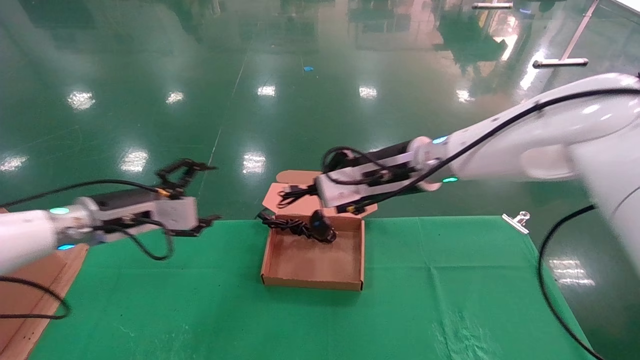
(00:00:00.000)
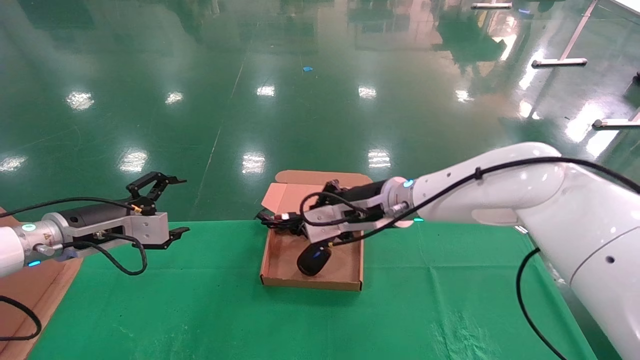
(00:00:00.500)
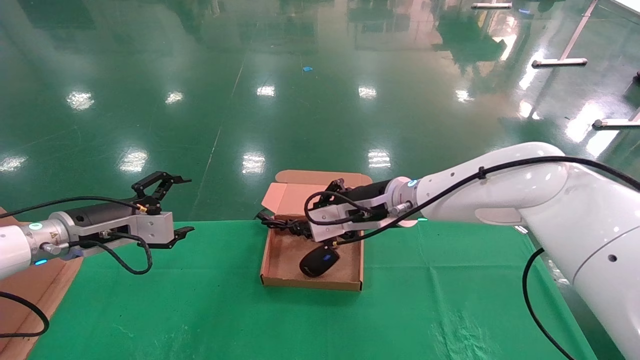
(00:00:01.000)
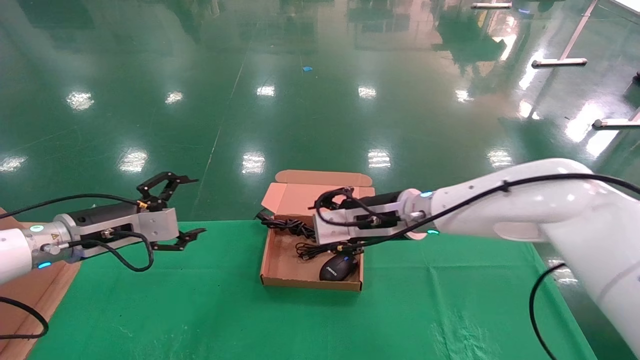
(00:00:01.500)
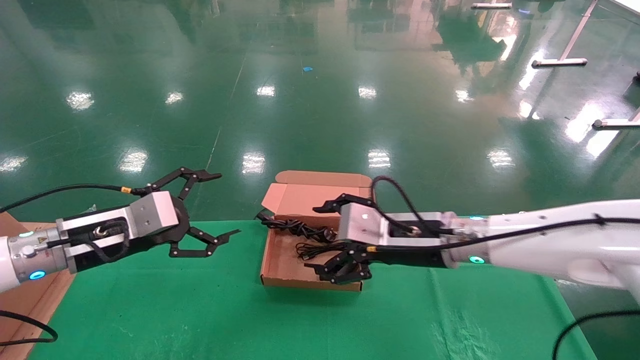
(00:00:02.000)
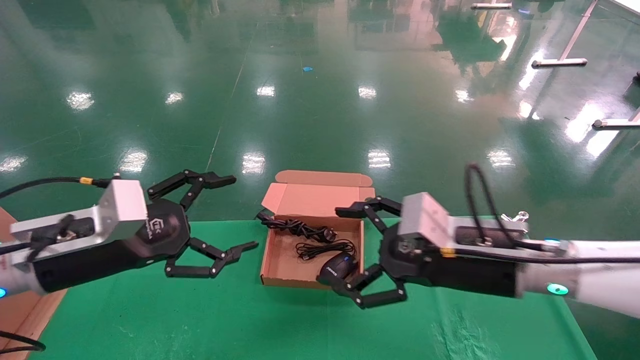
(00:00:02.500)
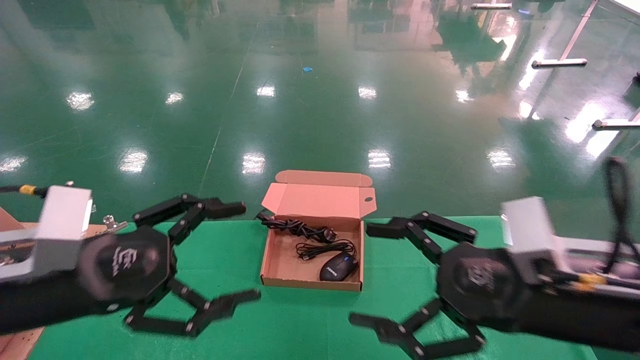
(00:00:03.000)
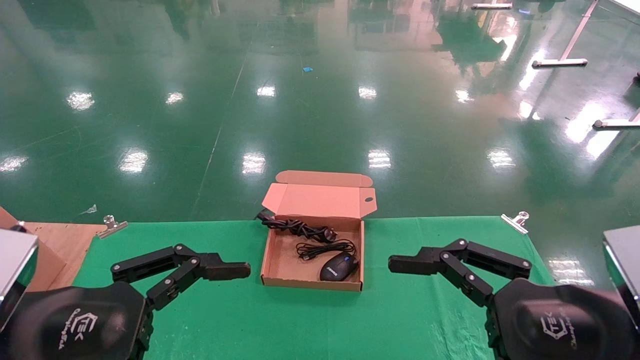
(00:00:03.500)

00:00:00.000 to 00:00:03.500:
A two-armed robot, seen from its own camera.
00:00:00.000 to 00:00:02.000: The right gripper is displaced downward by some 10 cm, and opens up. The left gripper goes approximately 5 cm backward.
00:00:02.000 to 00:00:03.500: The right gripper is displaced backward and to the right by approximately 25 cm; the left gripper is displaced backward by roughly 20 cm.

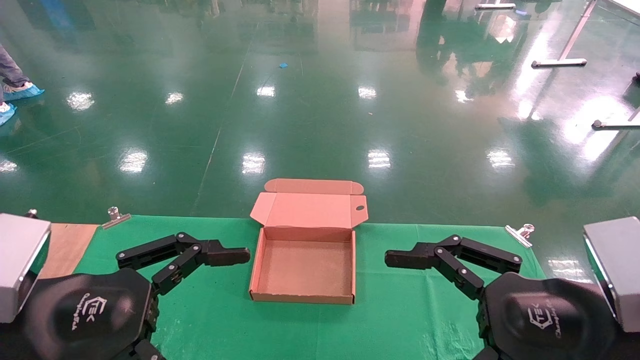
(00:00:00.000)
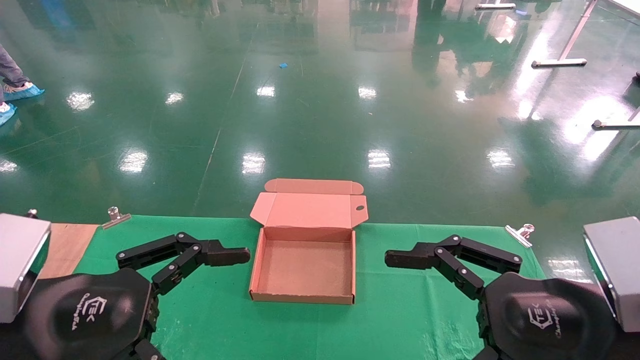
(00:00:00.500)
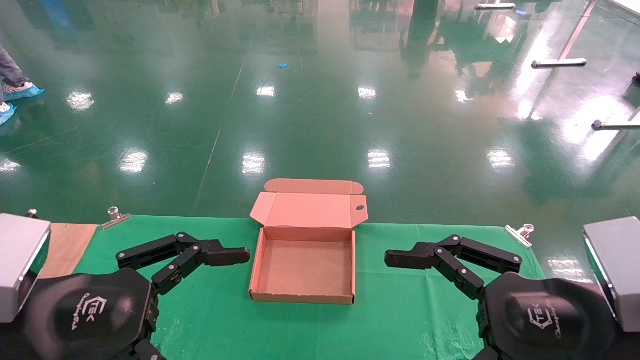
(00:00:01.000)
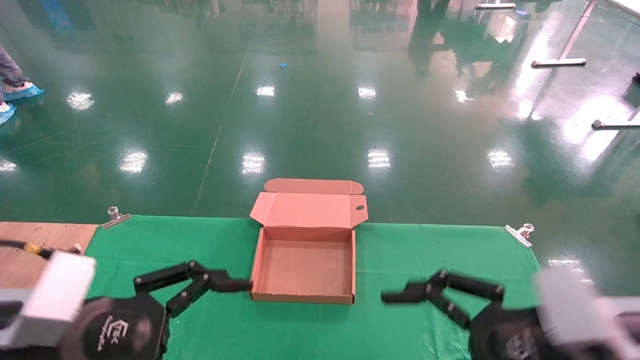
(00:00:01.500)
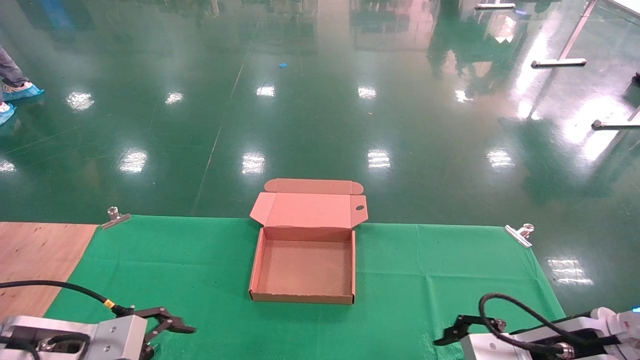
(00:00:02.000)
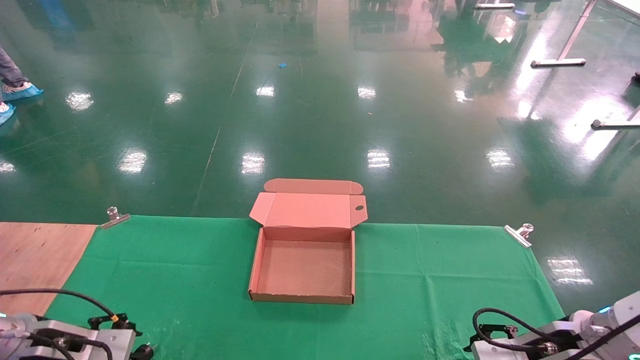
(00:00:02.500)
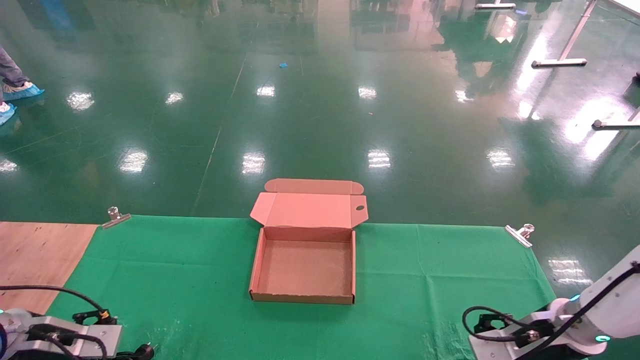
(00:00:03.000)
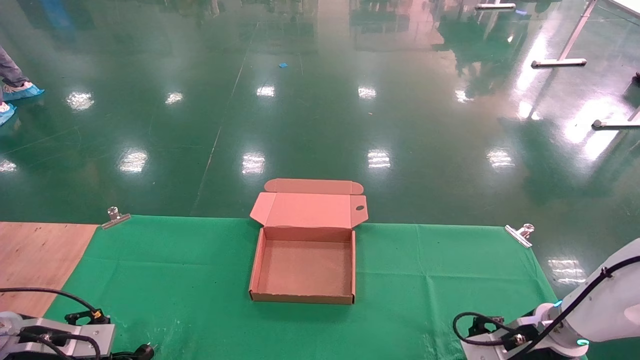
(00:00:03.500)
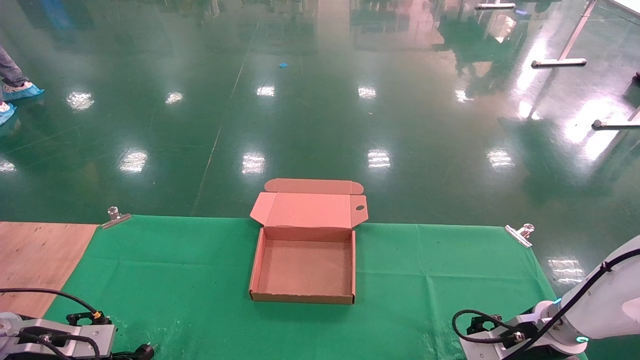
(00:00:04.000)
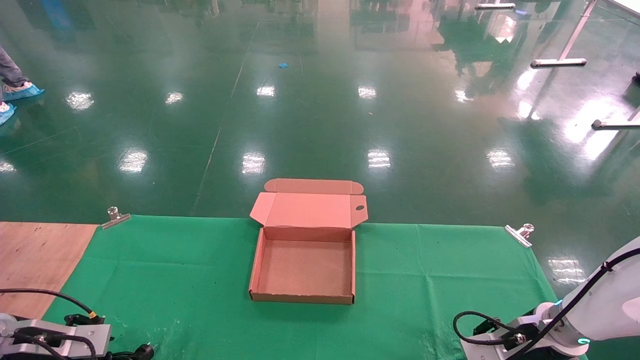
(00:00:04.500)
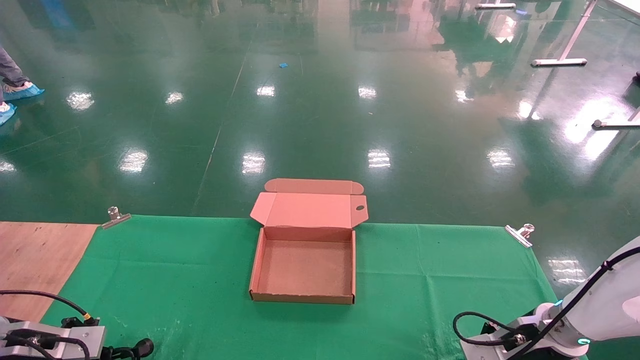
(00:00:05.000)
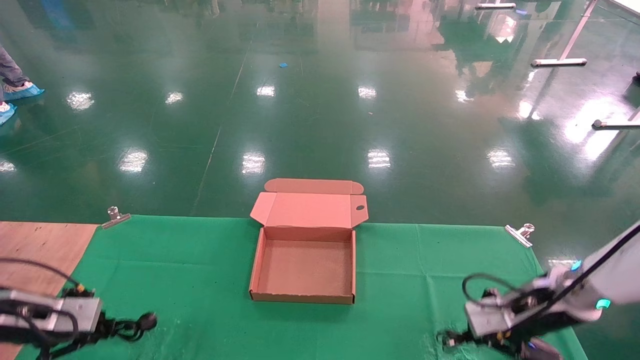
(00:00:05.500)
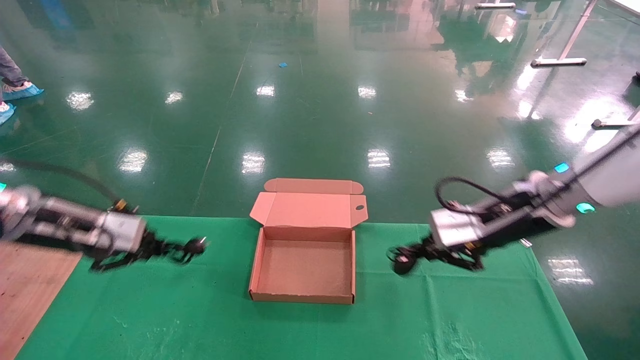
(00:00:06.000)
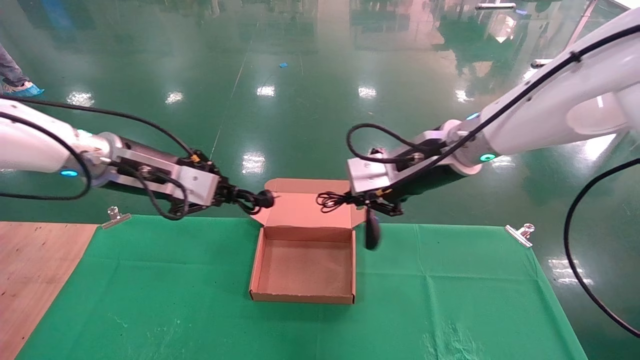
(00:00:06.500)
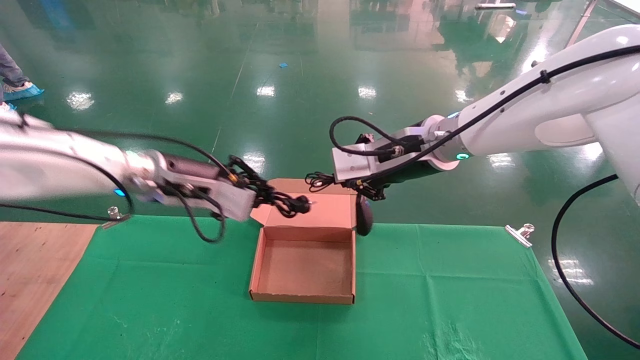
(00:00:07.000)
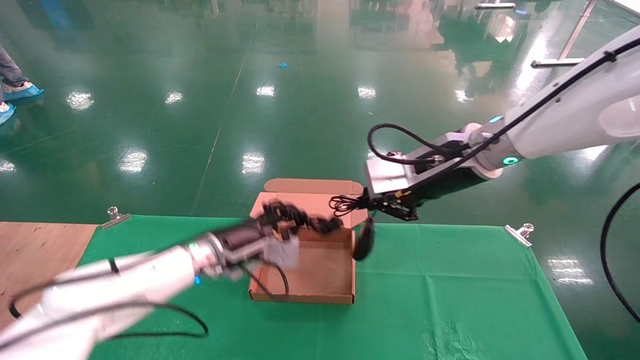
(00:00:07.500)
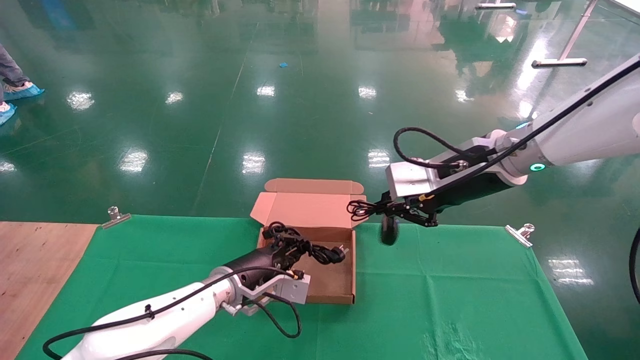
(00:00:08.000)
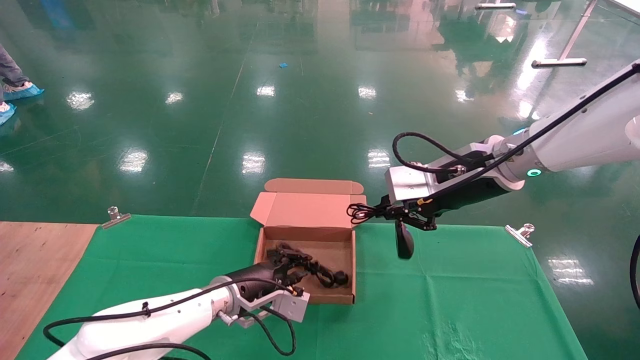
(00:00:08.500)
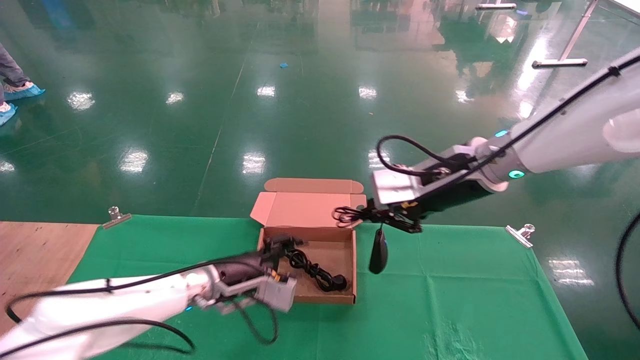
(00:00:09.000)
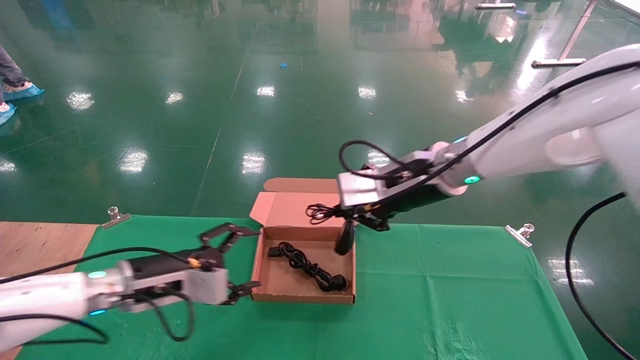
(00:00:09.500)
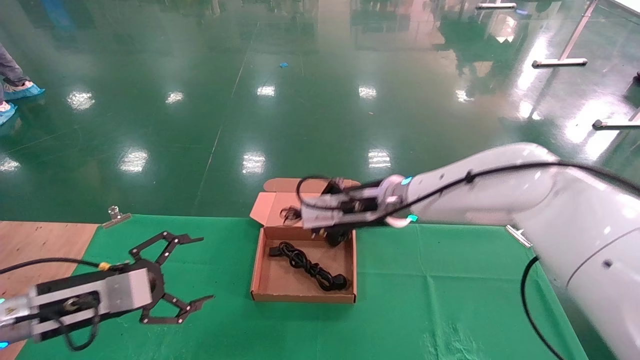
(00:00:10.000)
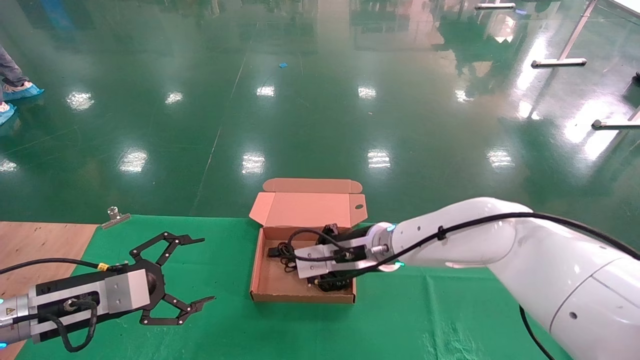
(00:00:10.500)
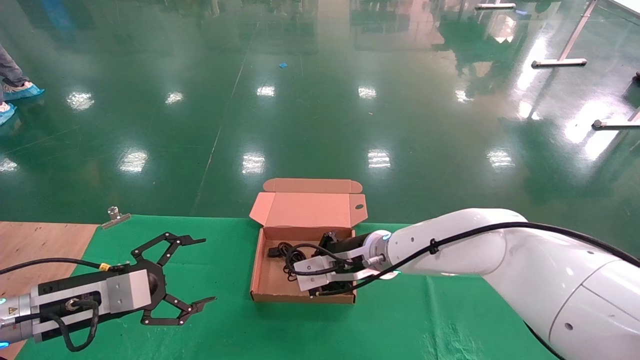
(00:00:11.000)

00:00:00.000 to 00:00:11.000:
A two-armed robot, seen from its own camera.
Step, 00:00:02.000 to 00:00:06.000: Grab and lift both the mouse and power cord from the accessory packaging area at the same time.
00:00:00.000 to 00:00:02.000: The left gripper goes roughly 15 cm downward, forward and to the left. The right gripper moves forward and downward, approximately 10 cm.
00:00:02.000 to 00:00:03.500: The right gripper goes about 15 cm forward and downward. Meanwhile the left gripper goes roughly 15 cm to the left, forward and downward.
00:00:03.500 to 00:00:05.500: The grippers both shift upward by roughly 10 cm. The right gripper closes. The left gripper closes up.
00:00:05.500 to 00:00:07.500: The left gripper shifts some 30 cm to the right, while the right gripper is displaced upward and to the left by some 25 cm.
00:00:07.500 to 00:00:09.000: The left gripper changes place by roughly 5 cm, and opens.
00:00:09.000 to 00:00:11.000: The right gripper shifts roughly 20 cm downward and to the left; the left gripper is displaced to the left and backward by about 20 cm, and opens up.

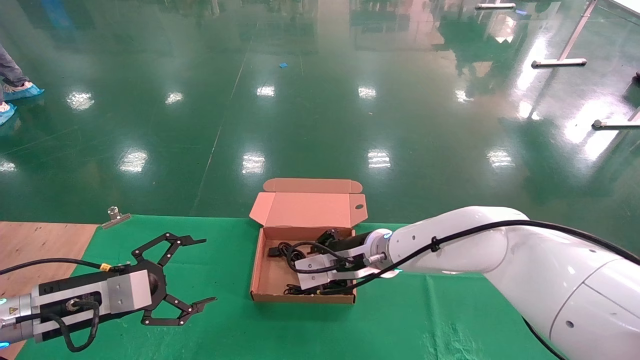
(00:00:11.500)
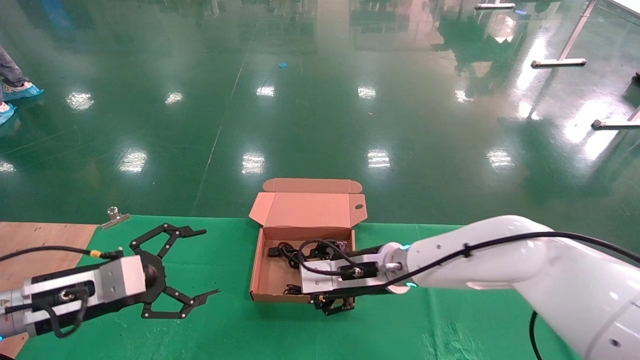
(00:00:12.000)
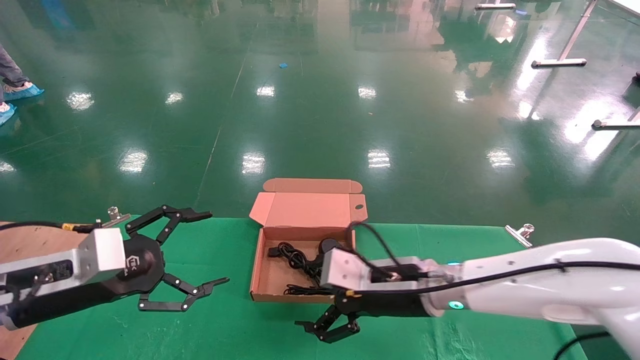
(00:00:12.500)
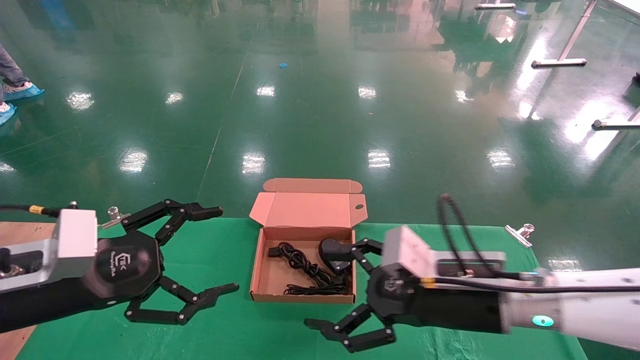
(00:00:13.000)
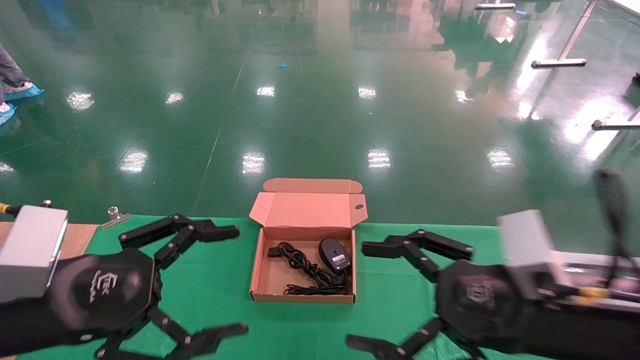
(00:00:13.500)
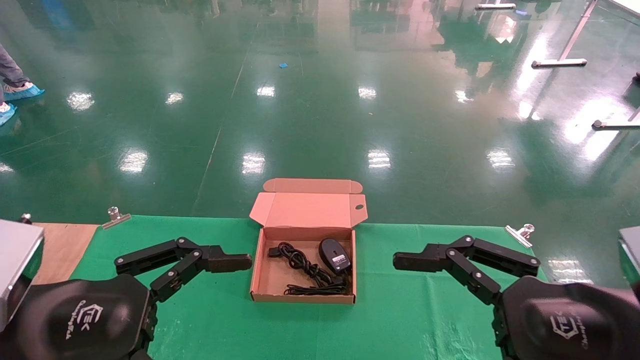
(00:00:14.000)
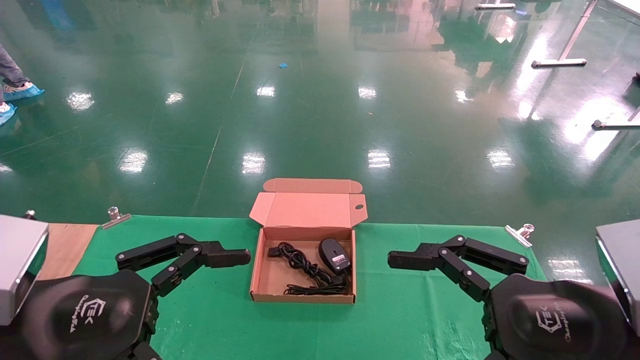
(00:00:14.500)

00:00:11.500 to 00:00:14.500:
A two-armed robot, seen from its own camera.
00:00:11.500 to 00:00:13.000: The right gripper heads backward and to the right, covering approximately 20 cm, and opens up; the left gripper is displaced upward and backward by roughly 10 cm.
00:00:13.000 to 00:00:14.500: The right gripper moves backward and to the right, approximately 15 cm; the left gripper goes about 10 cm backward.
